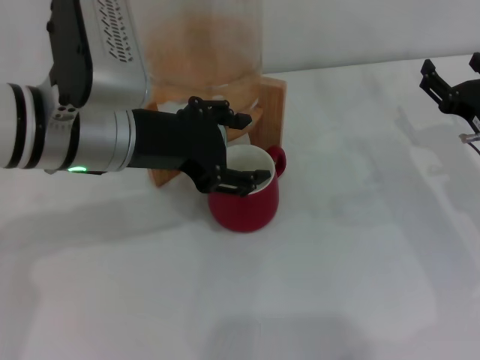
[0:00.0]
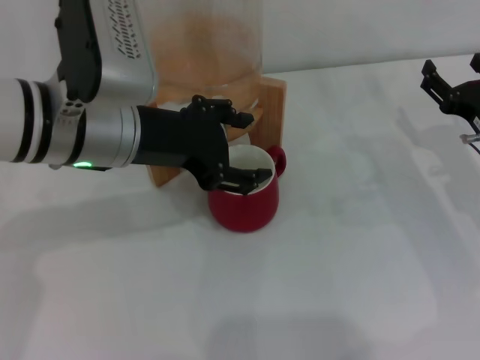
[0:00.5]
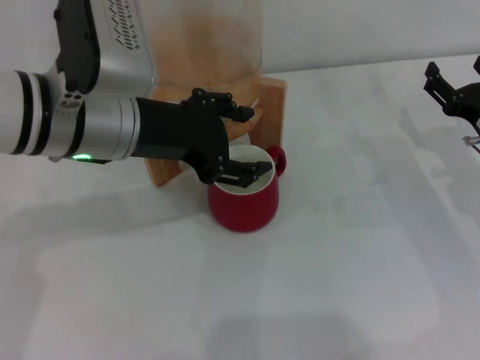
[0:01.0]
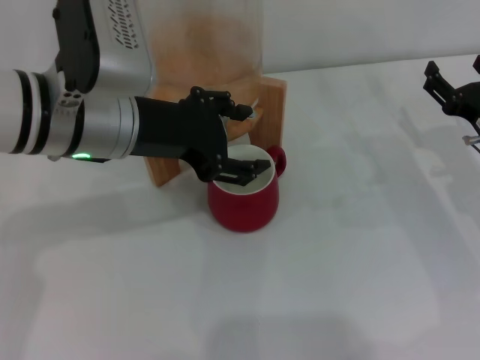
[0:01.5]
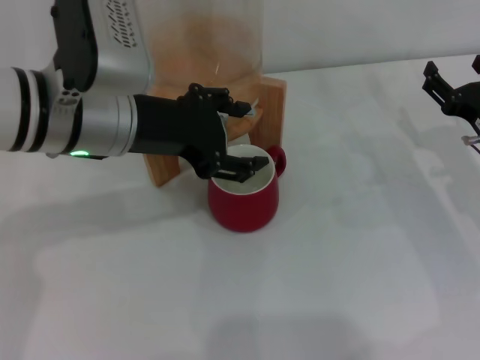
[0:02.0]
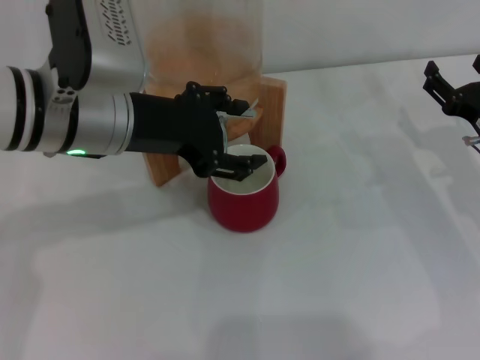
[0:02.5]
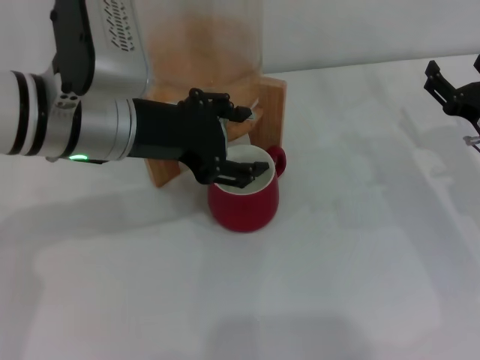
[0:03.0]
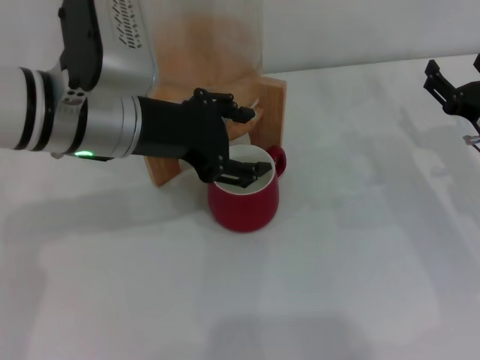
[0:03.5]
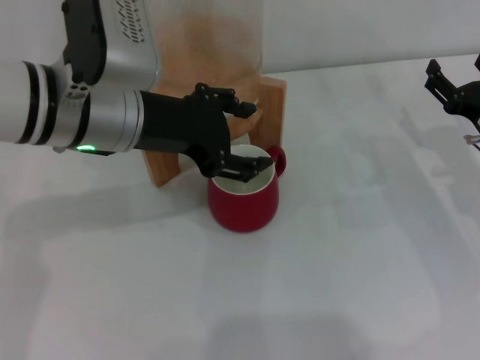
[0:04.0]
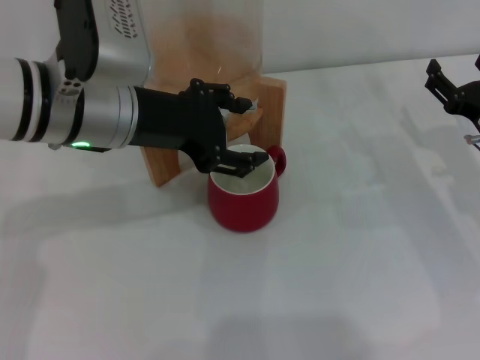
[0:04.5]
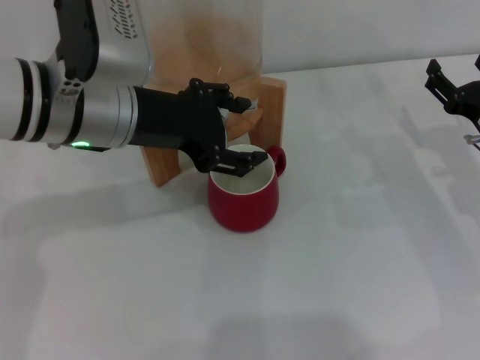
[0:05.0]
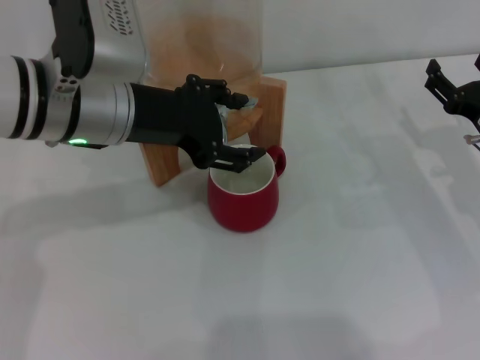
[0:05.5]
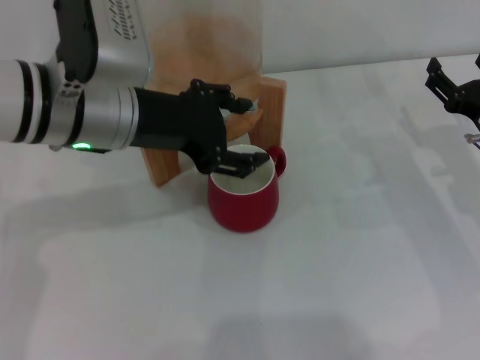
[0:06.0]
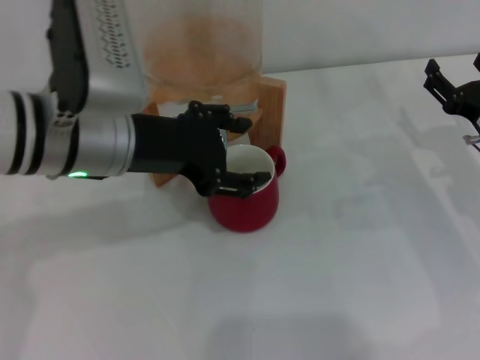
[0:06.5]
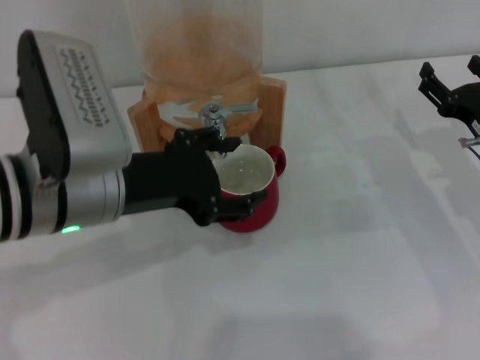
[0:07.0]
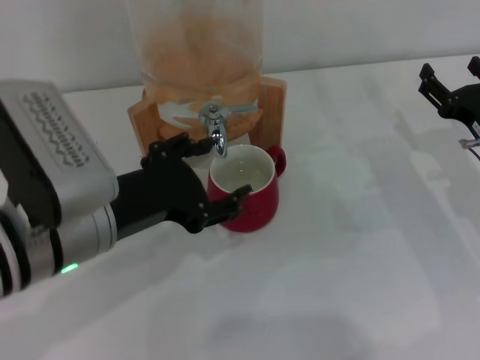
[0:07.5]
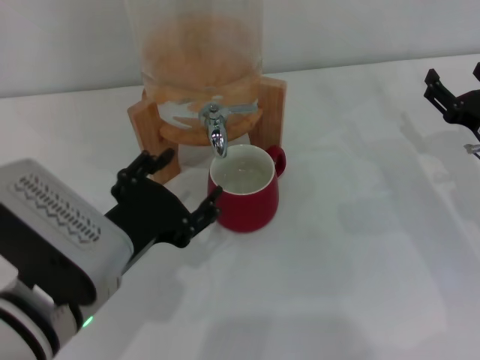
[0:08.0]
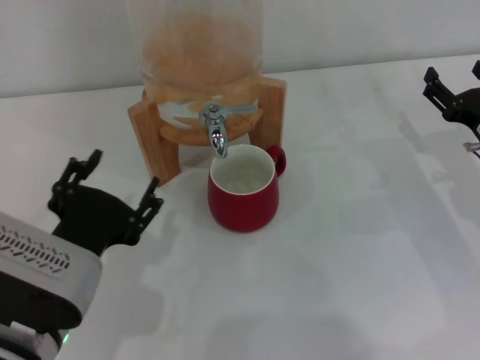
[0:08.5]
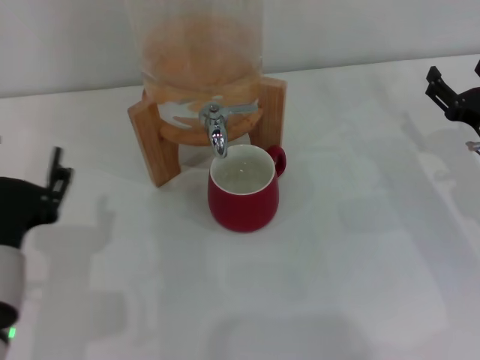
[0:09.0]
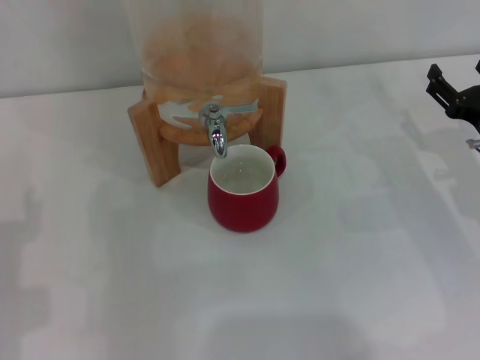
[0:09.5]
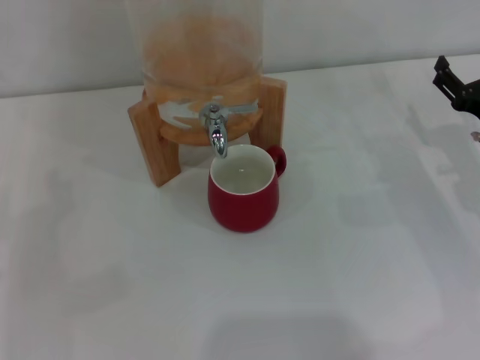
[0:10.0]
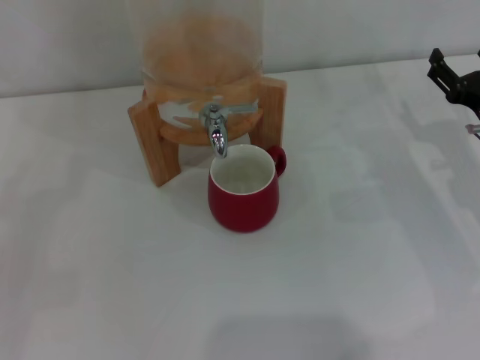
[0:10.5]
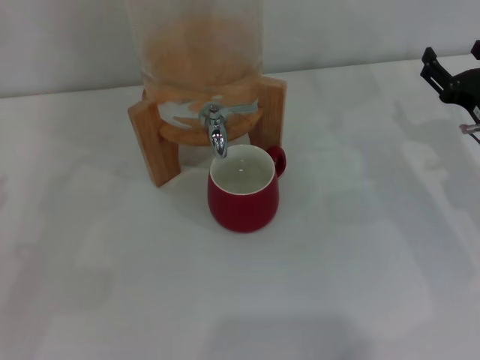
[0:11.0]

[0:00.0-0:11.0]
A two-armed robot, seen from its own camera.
Task of the whole recording: the right gripper pick up the red cup and place it horizontally under the faucet, the left gripper turn on the faucet to fill the cup, and then turn off the faucet.
Step, 0:00.0 to 0:06.0: Close the dispenser valve with the left gripper.
0:00.0 to 0:02.0: Neither gripper changes place.
0:02.0 to 0:05.5: Both grippers stay about where they are.
0:05.5 to 0:07.5: The left gripper shifts approximately 10 cm backward.
0:07.5 to 0:09.0: The left gripper shifts approximately 5 cm backward.
0:09.0 to 0:11.0: The left gripper travels to the left by approximately 20 cm.
